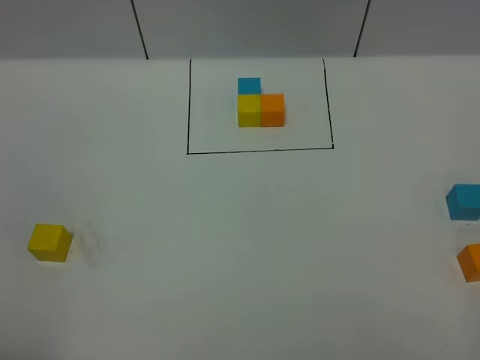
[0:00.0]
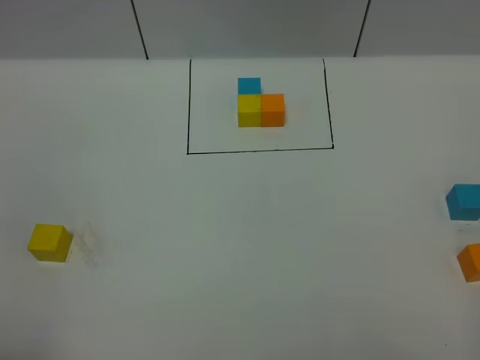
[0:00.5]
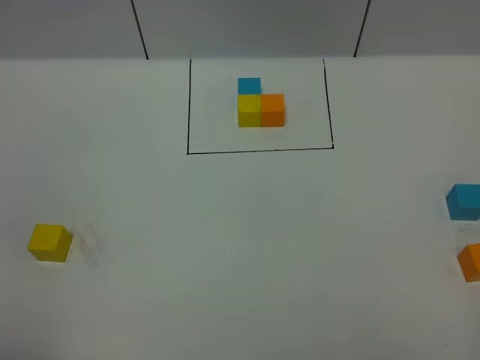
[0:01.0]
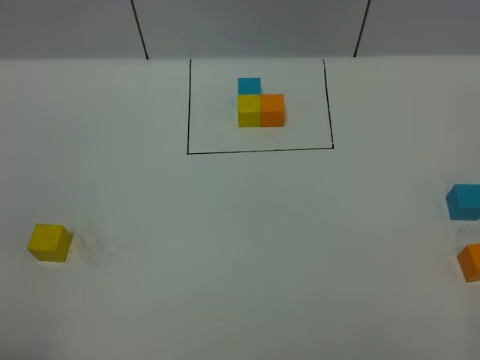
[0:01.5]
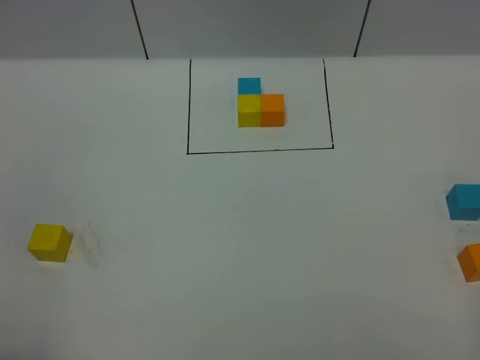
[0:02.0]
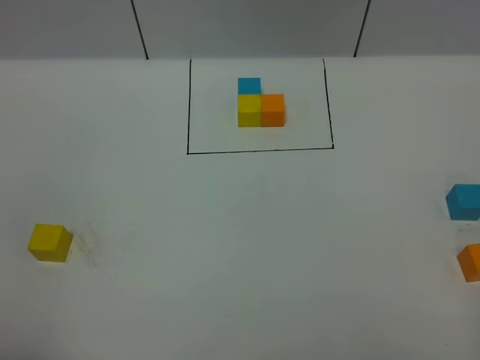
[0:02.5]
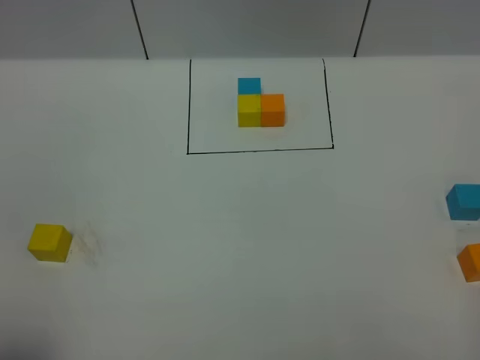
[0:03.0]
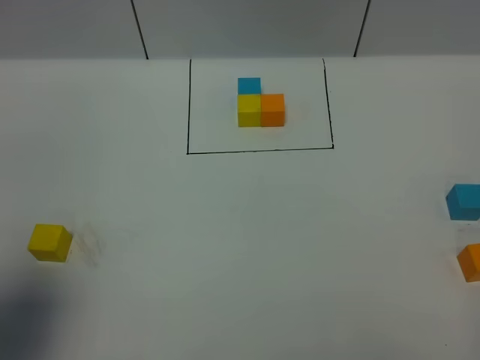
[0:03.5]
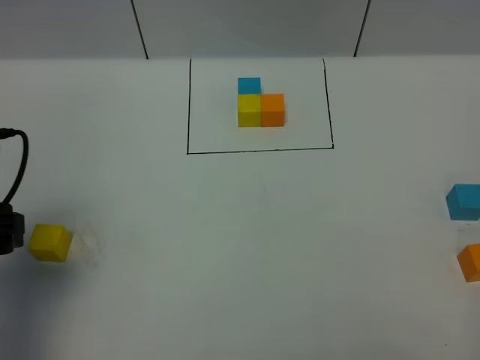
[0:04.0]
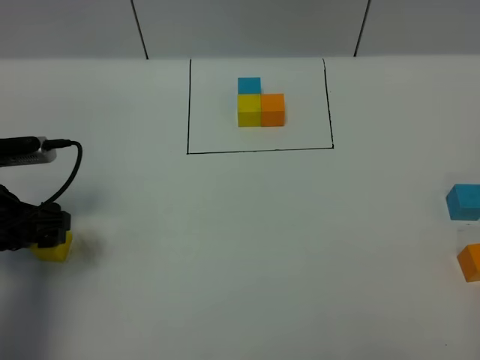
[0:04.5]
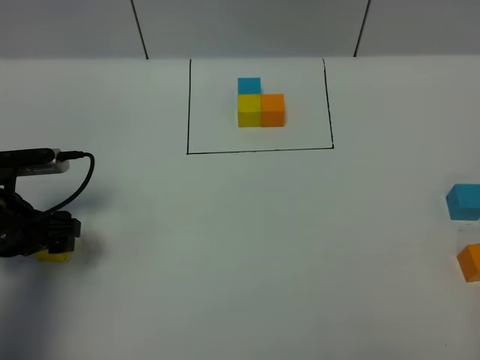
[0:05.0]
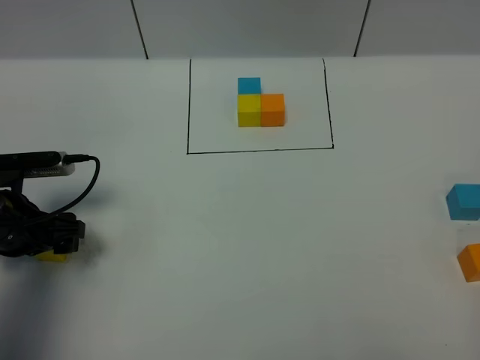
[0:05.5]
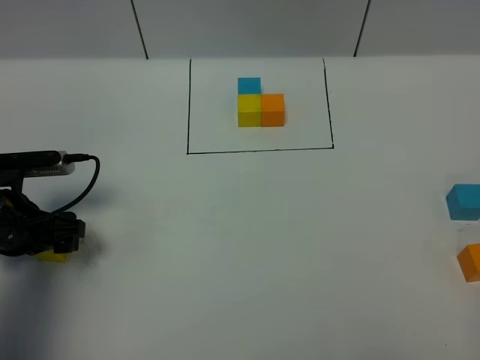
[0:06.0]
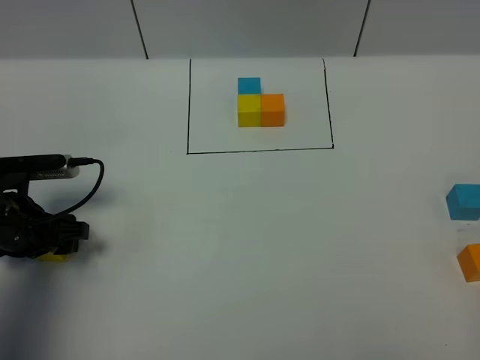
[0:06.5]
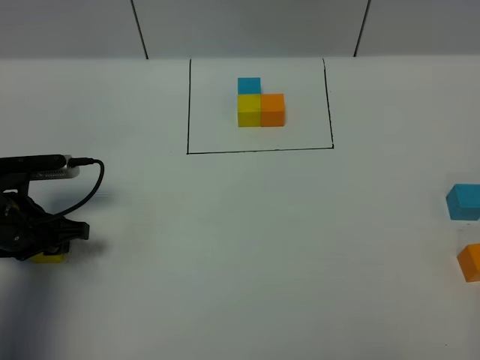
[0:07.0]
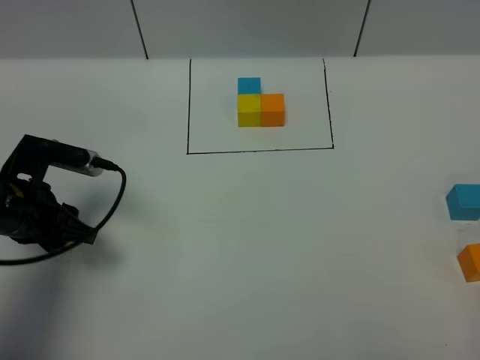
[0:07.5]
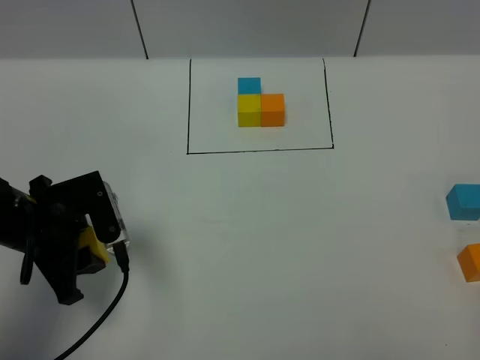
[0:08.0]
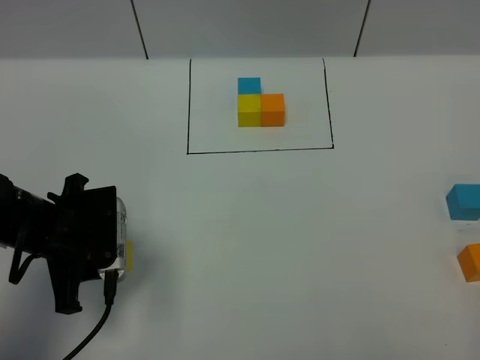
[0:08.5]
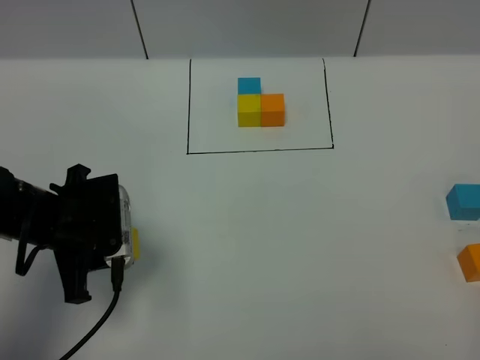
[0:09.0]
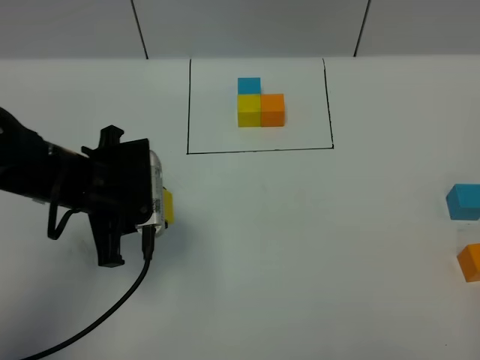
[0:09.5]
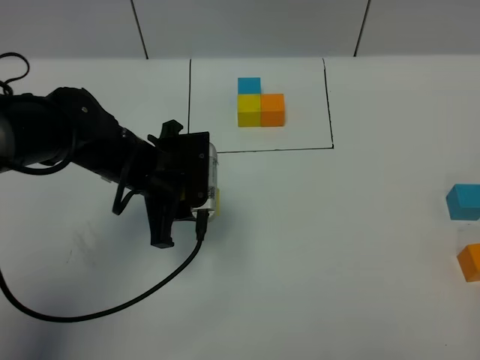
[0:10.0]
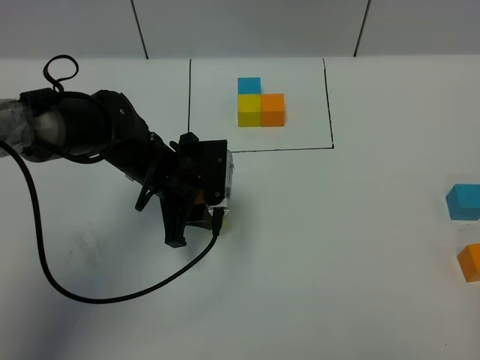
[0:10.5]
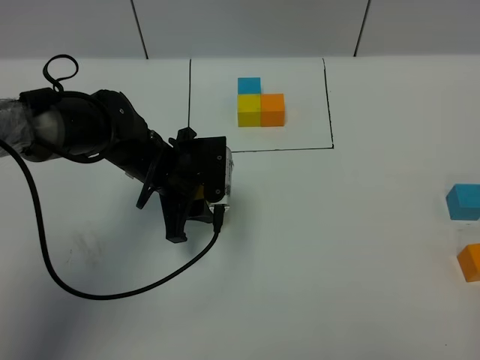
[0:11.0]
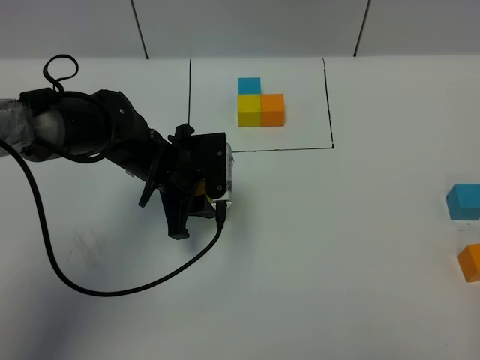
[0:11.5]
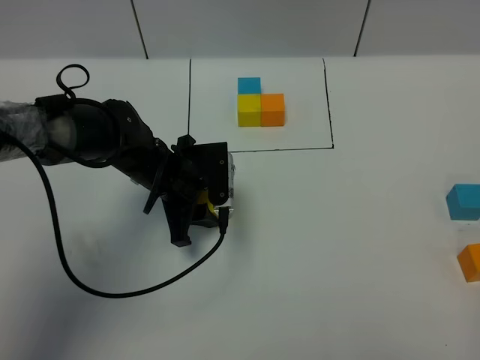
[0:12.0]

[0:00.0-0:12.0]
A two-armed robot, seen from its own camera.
Task of the whole recording: According to the building block template in front, assemble the scattered blocks together.
0:02.0 to 0:04.0: The left gripper goes roughly 20 cm forward, and opens up.
0:04.0 to 0:06.0: The left gripper goes roughly 10 cm downward and forward.
0:06.0 to 0:08.0: The left gripper is displaced to the right by some 5 cm, and closes its fingers.
0:08.0 to 0:10.0: The left gripper travels to the right and forward by some 15 cm.
0:10.0 to 0:12.0: The left gripper goes some 5 cm downward.

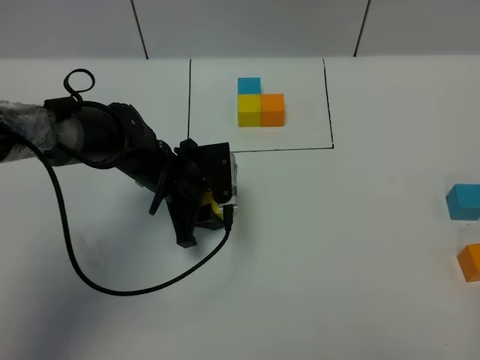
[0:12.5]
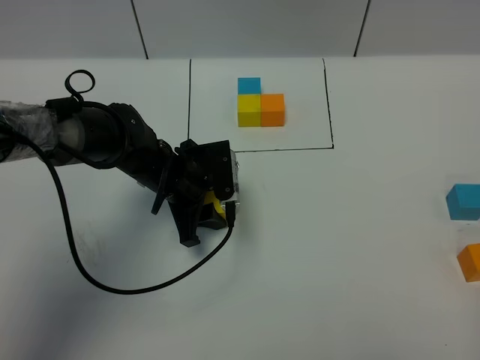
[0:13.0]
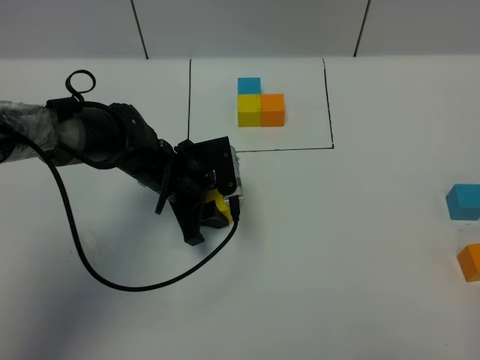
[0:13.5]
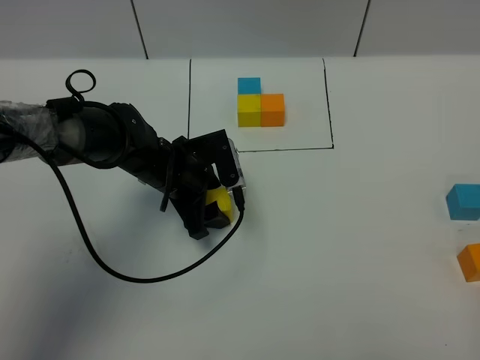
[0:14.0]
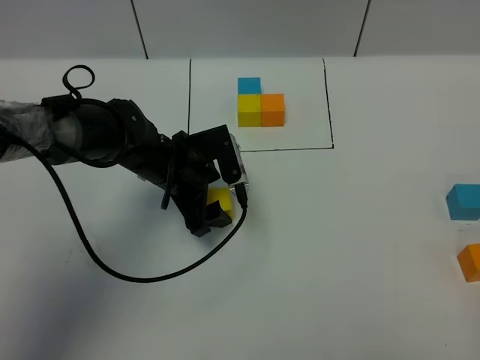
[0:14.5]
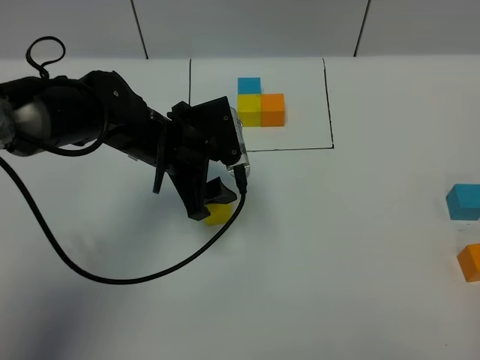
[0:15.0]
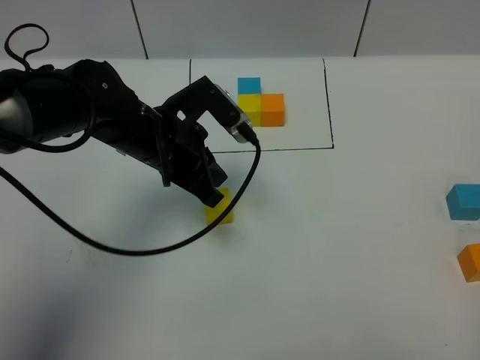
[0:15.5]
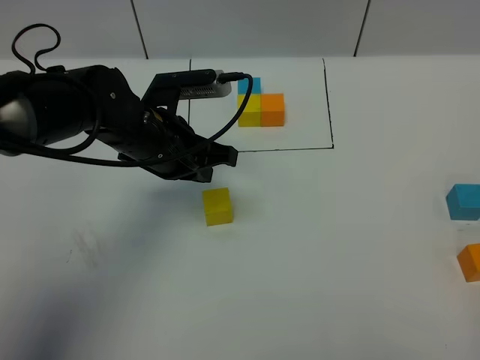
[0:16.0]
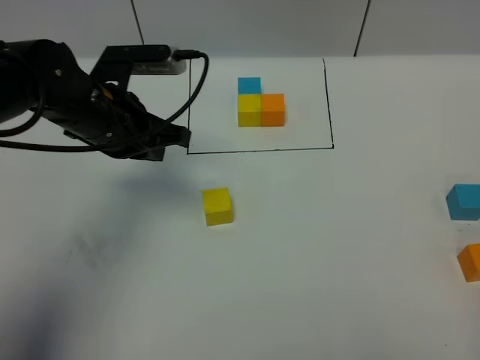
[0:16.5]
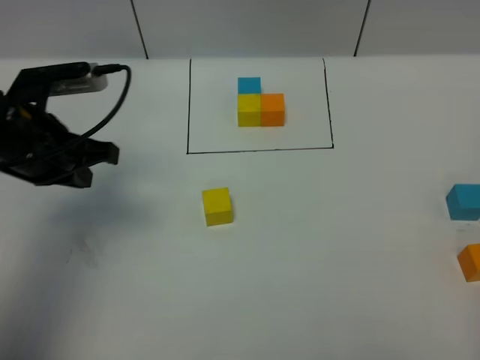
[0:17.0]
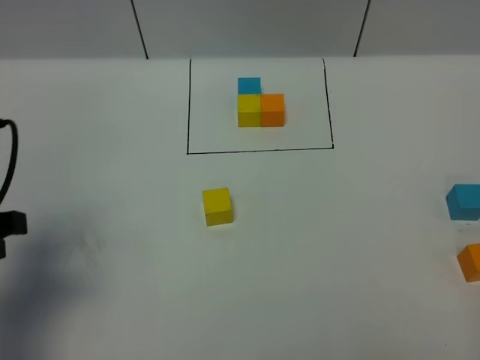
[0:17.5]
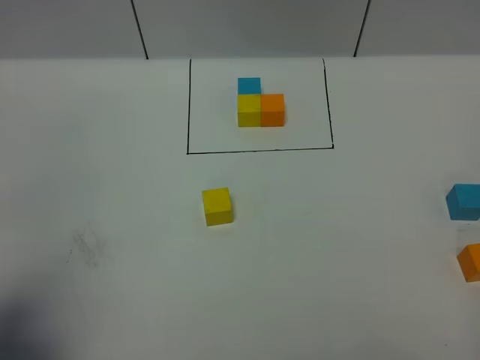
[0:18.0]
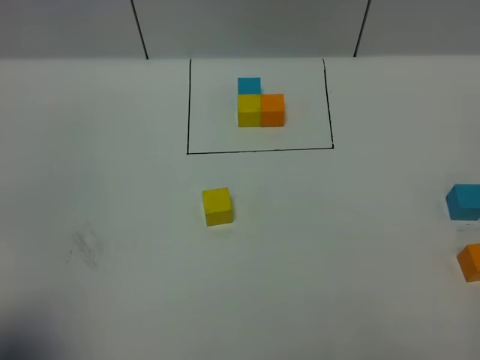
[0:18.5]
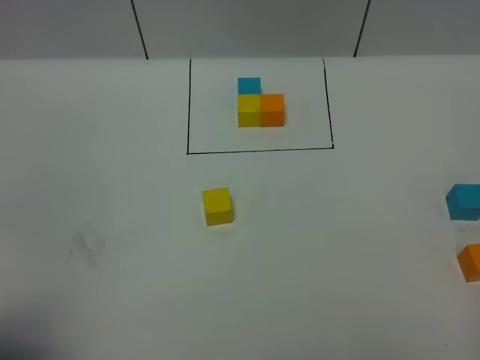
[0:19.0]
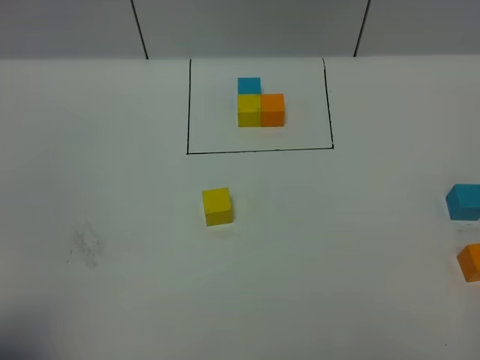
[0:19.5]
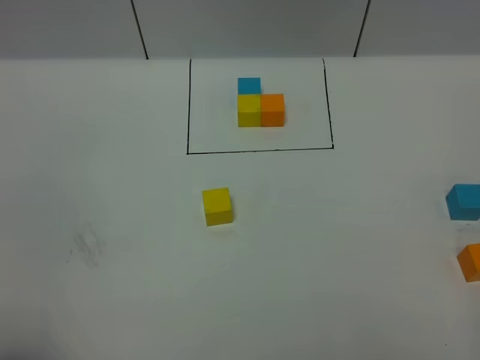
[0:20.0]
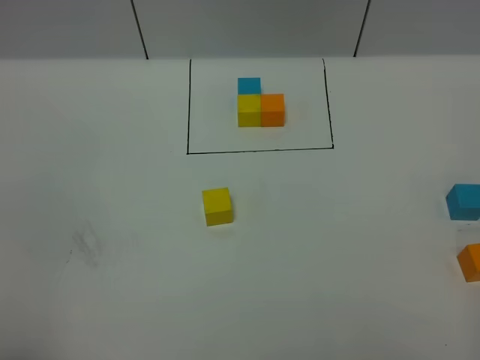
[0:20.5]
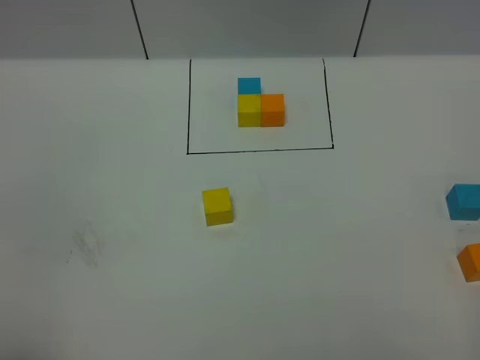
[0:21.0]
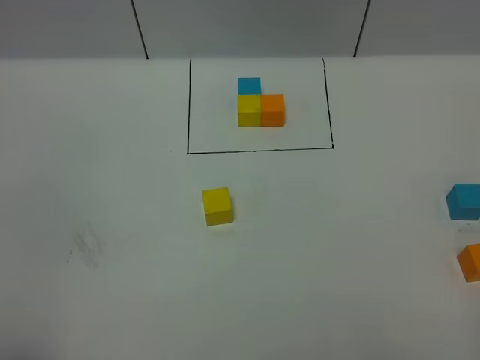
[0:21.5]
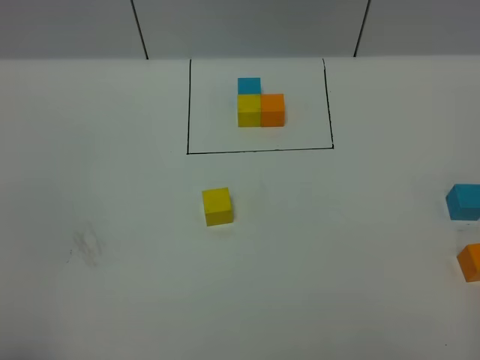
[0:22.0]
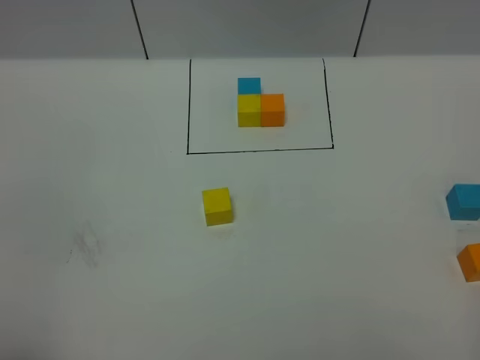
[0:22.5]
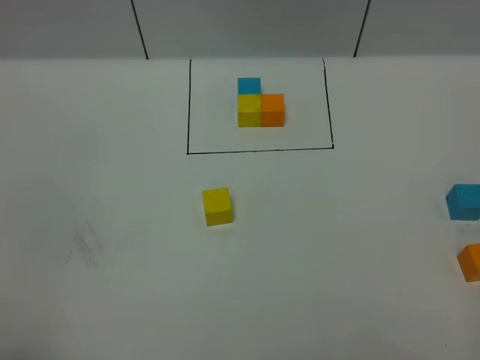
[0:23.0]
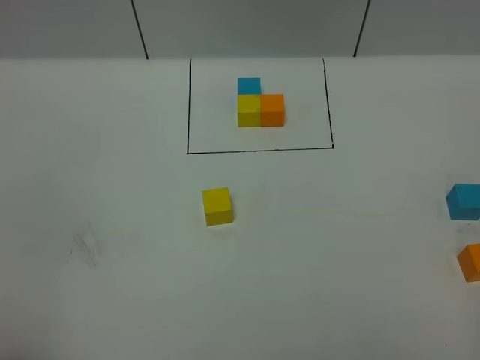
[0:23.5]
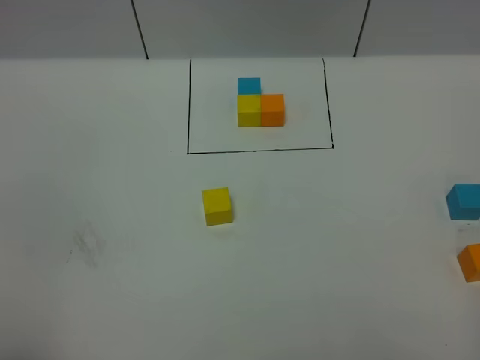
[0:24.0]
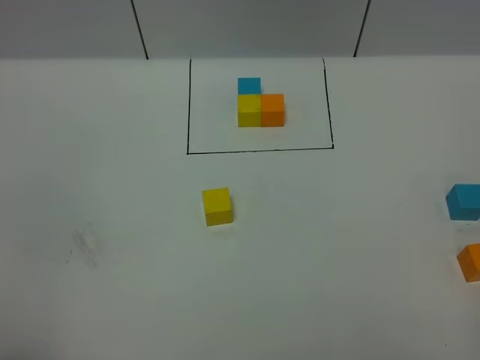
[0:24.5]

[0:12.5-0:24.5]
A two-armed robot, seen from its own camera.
Task of the whole recording: According to the building block template in front, assemble the scattered blocks together.
0:12.5 to 0:14.5: The left gripper opens.
0:14.5 to 0:16.5: The left gripper moves upward and to the left, approximately 10 cm, and closes its fingers.
0:16.5 to 0:18.5: The left gripper is displaced backward and to the left by roughly 30 cm.
0:18.5 to 0:20.5: The left gripper heads backward, covering approximately 5 cm.
0:20.5 to 0:22.5: Neither gripper changes place.

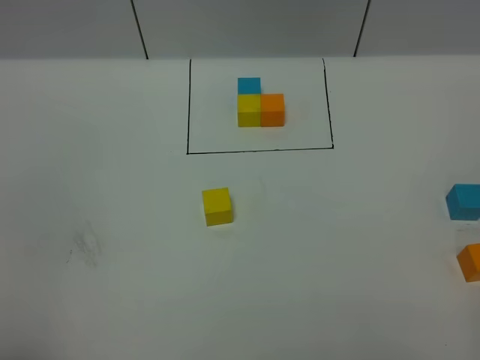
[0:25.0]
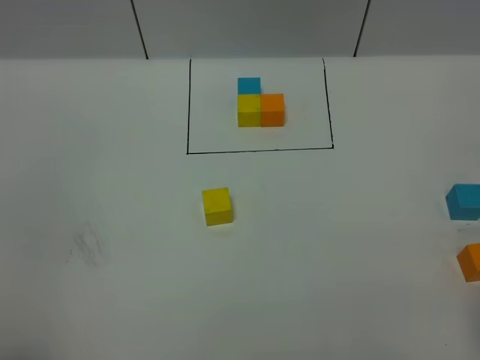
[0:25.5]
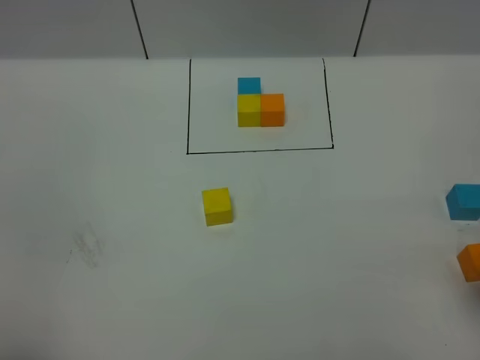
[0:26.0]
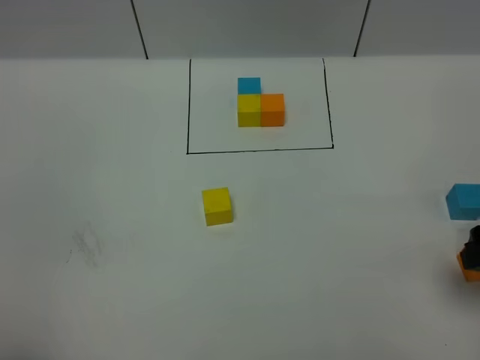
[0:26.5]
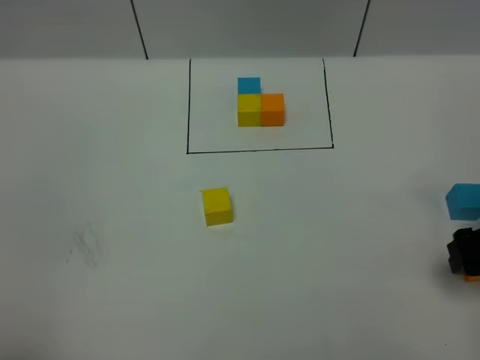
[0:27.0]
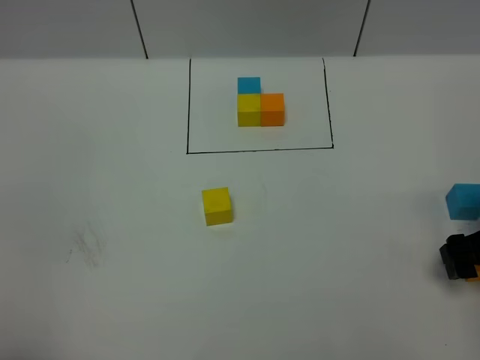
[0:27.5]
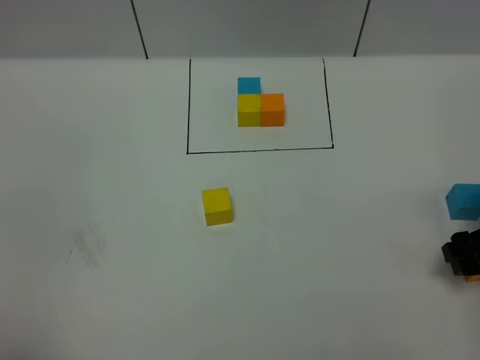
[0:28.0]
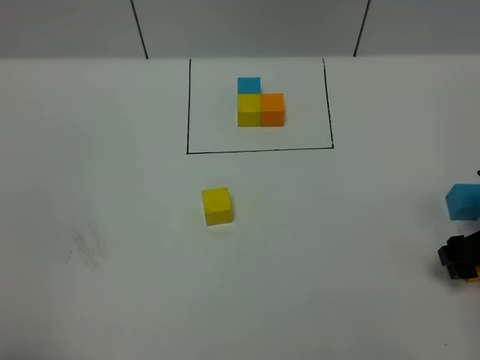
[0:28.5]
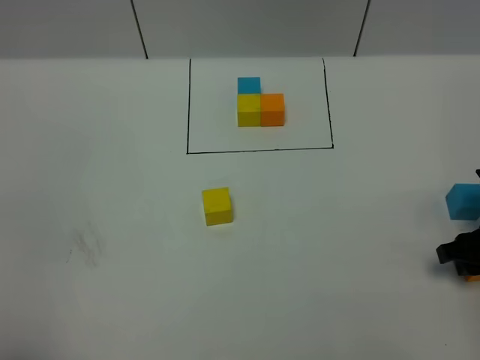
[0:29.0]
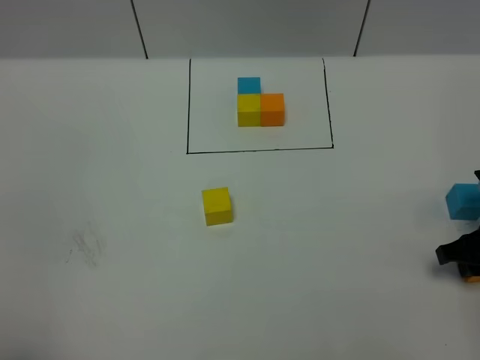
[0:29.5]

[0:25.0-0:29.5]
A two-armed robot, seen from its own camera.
Task of the whole recording: According to the building block template in front, assemble the scattered blocks together.
0:25.0 to 0:27.0: The right gripper heads forward and downward, covering about 25 cm.
